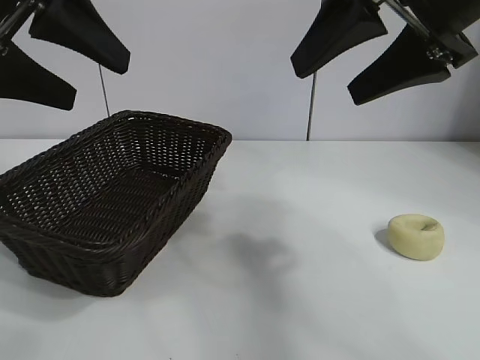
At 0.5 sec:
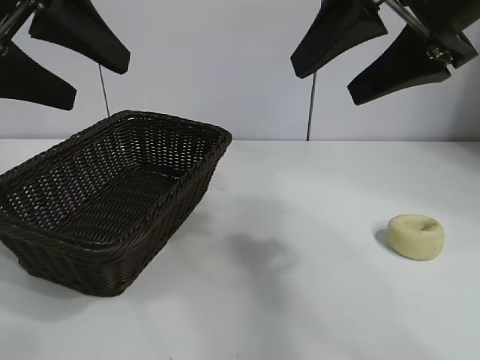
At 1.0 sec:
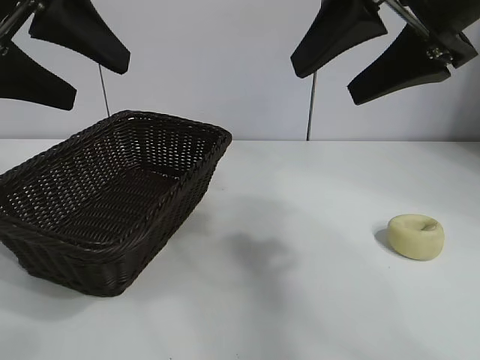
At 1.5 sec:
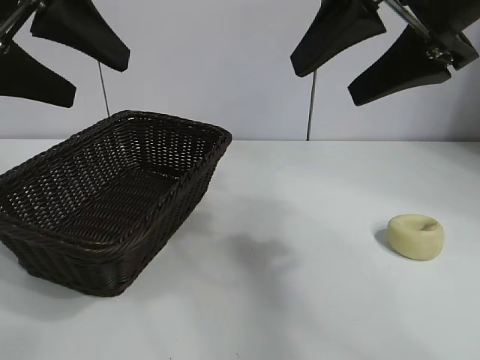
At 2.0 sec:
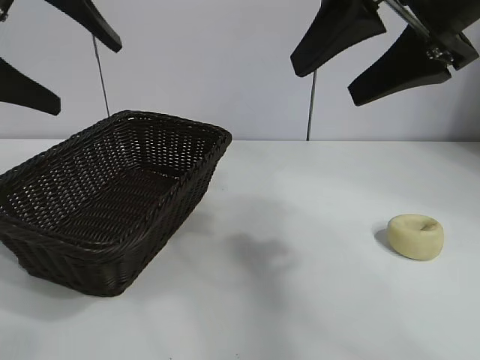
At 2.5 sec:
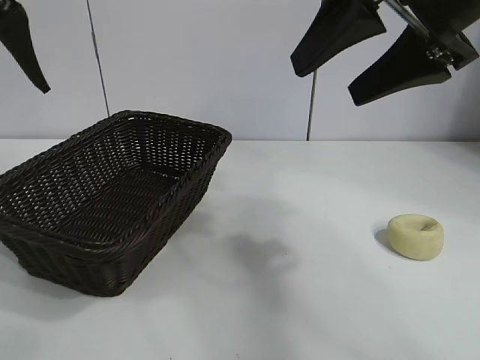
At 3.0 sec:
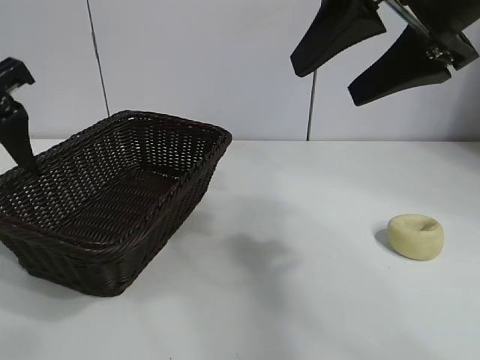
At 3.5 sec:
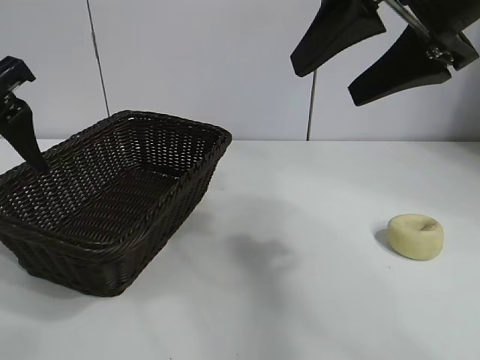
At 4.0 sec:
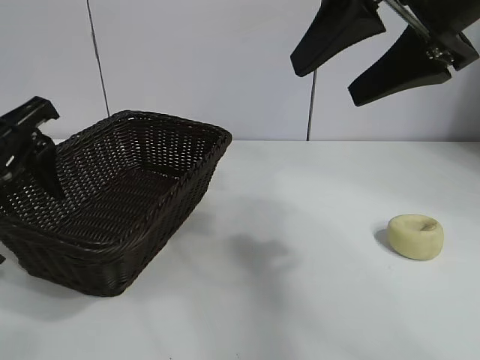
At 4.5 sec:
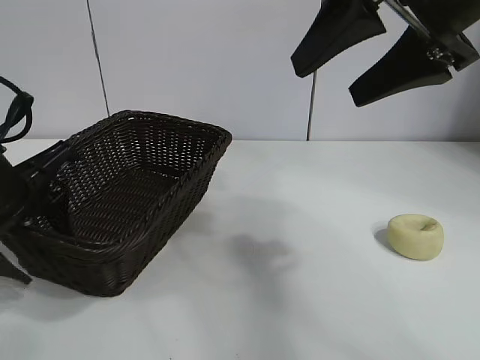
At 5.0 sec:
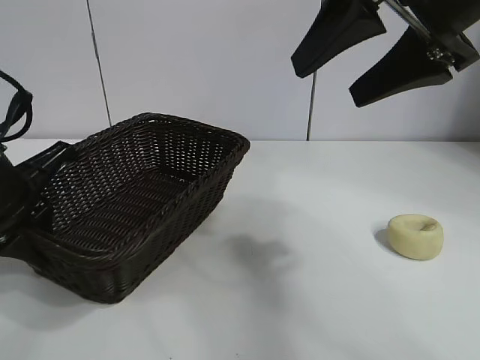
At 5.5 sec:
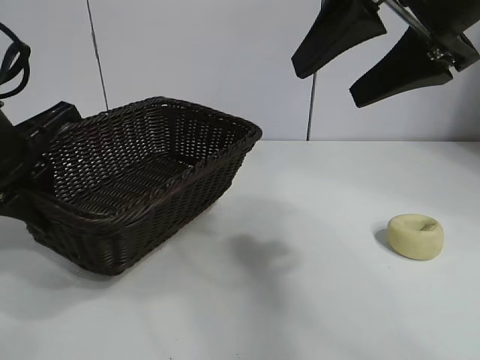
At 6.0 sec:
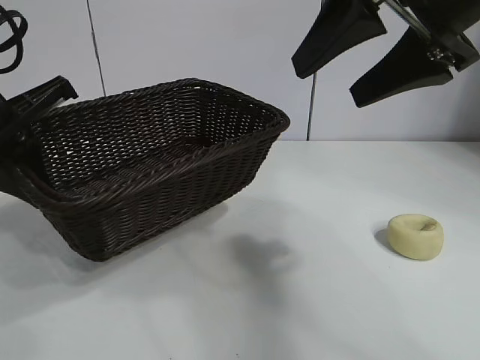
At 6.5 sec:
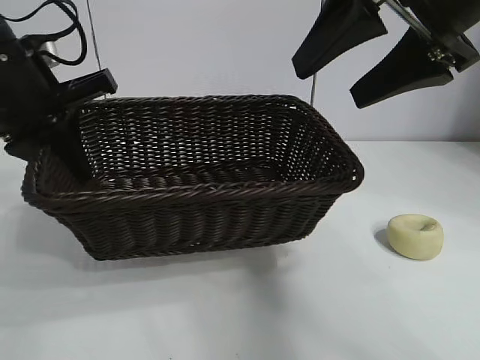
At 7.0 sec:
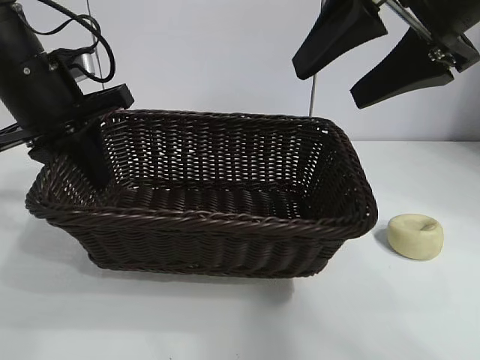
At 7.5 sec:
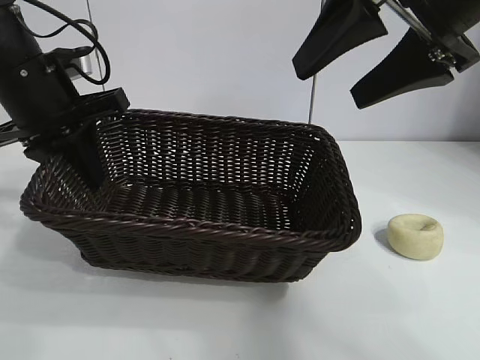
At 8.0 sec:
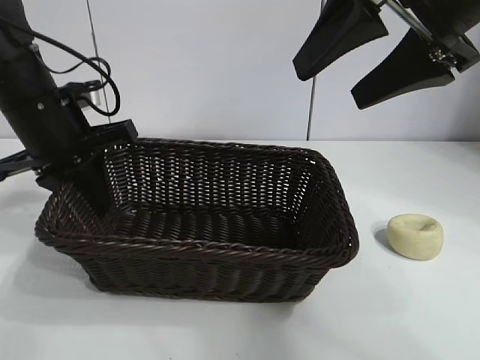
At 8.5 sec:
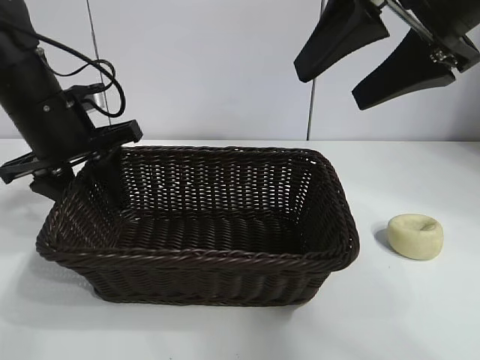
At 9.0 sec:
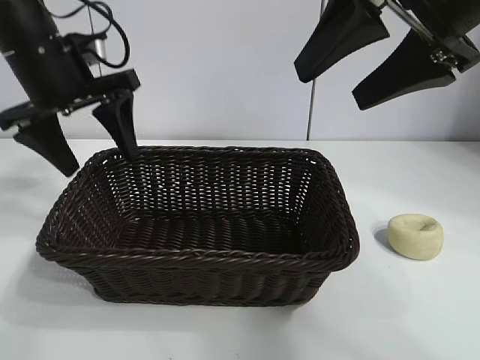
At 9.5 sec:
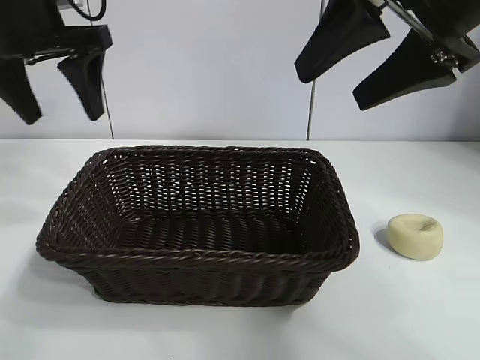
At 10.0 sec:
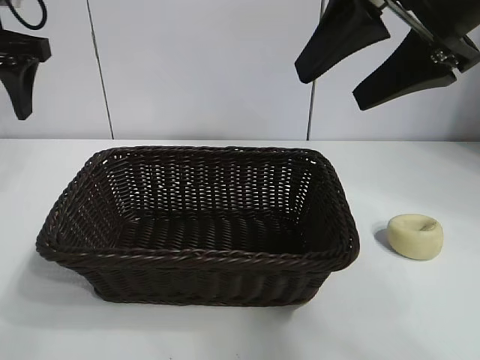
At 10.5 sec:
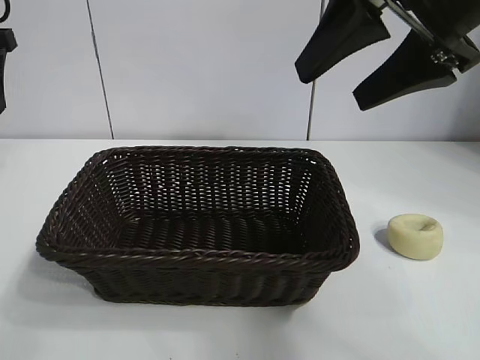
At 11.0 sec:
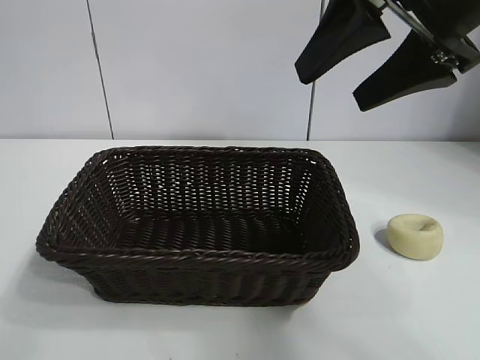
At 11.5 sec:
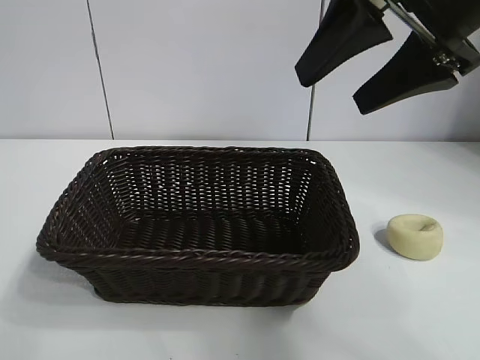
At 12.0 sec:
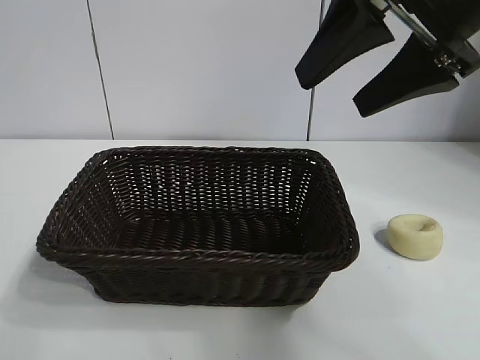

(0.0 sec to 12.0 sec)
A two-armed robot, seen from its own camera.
Task of the whole recording: pick up the egg yolk pastry and put it into the basket.
Step, 2.0 sec - 4.5 sec: Grasp the basket with left gripper.
Step, 5.0 sec - 8.5 sec: Place the basket in the center of view with left gripper.

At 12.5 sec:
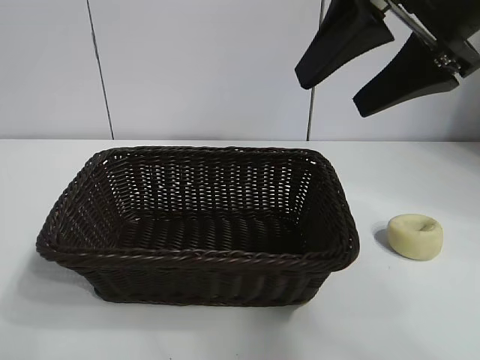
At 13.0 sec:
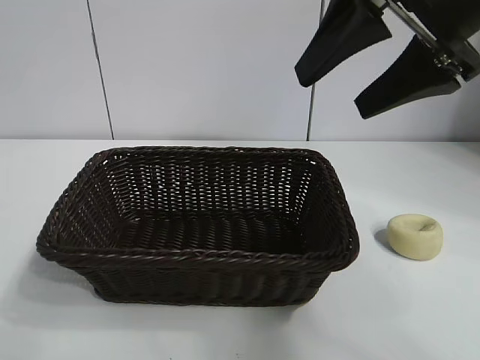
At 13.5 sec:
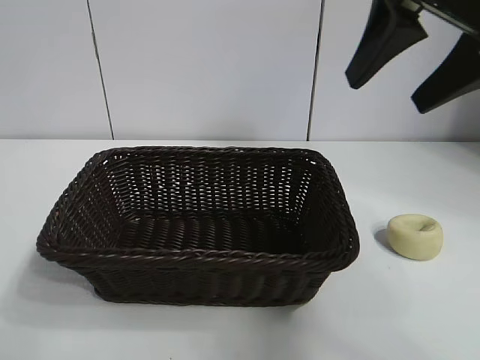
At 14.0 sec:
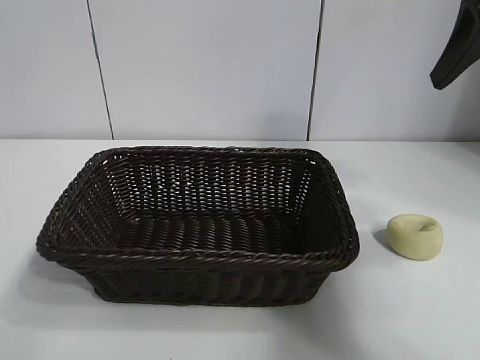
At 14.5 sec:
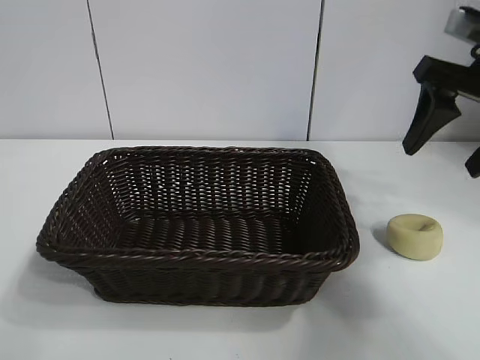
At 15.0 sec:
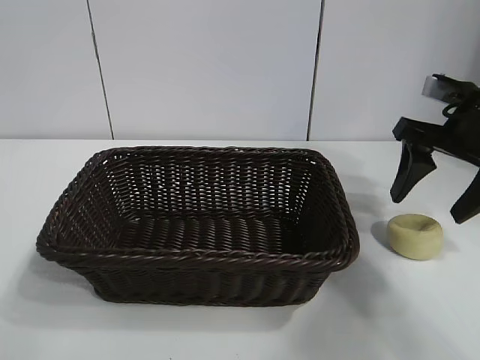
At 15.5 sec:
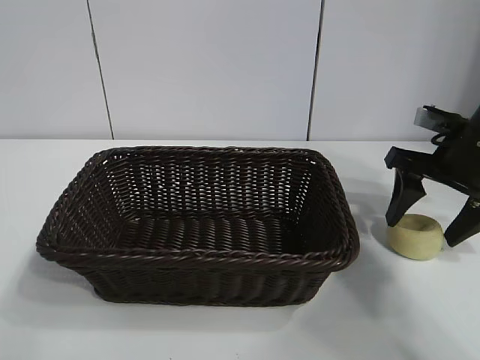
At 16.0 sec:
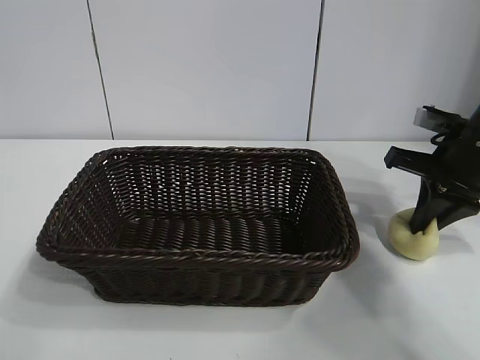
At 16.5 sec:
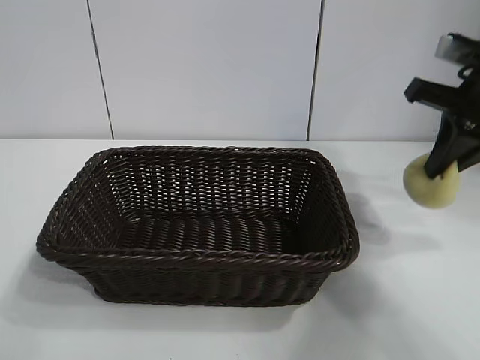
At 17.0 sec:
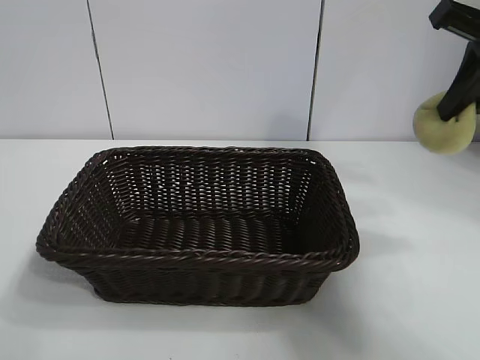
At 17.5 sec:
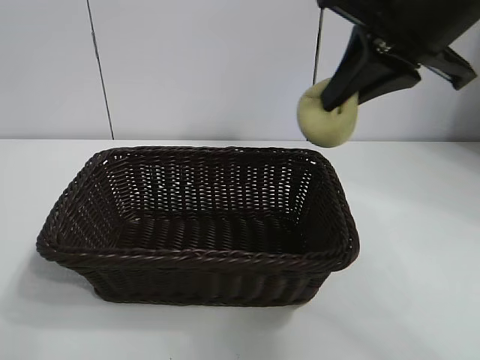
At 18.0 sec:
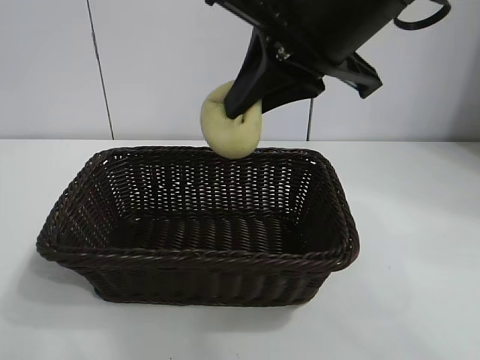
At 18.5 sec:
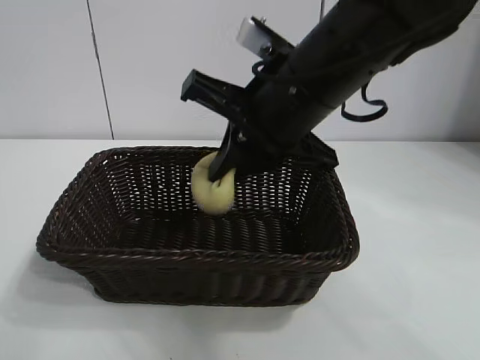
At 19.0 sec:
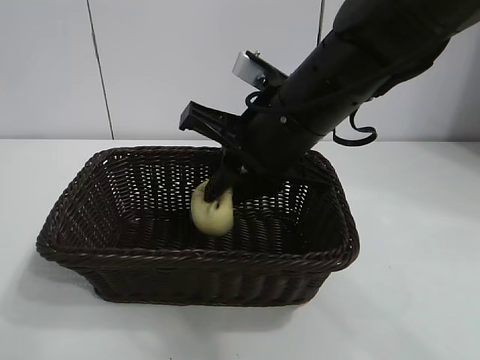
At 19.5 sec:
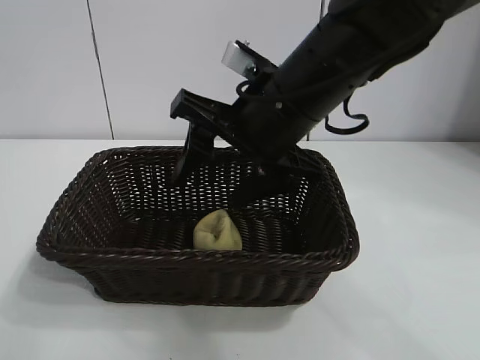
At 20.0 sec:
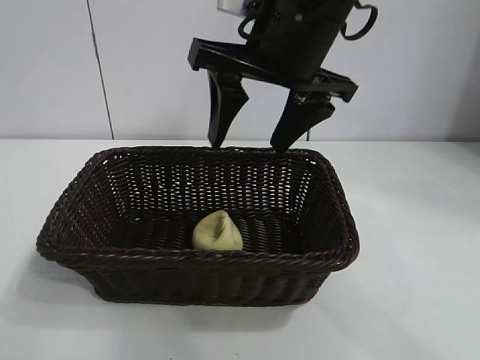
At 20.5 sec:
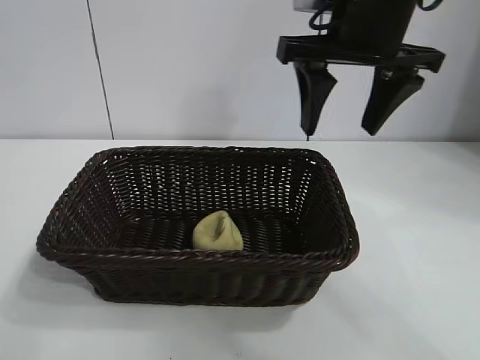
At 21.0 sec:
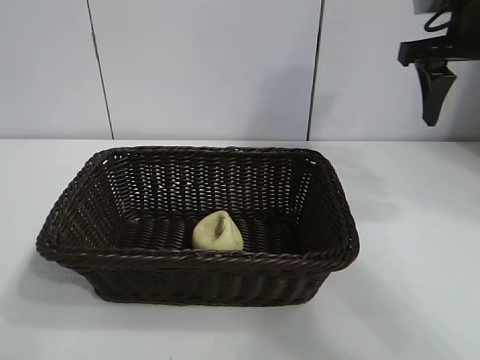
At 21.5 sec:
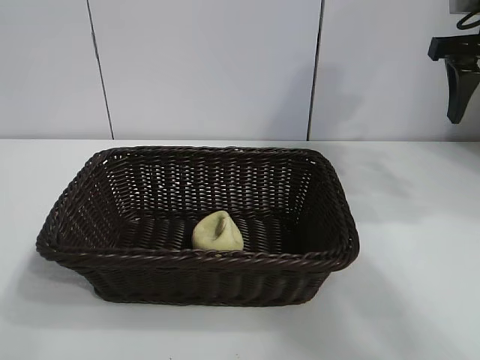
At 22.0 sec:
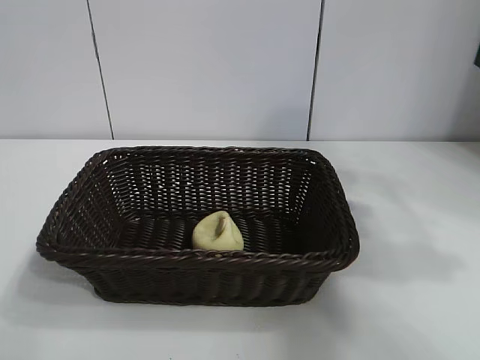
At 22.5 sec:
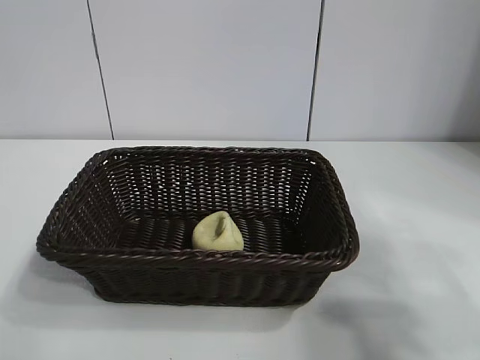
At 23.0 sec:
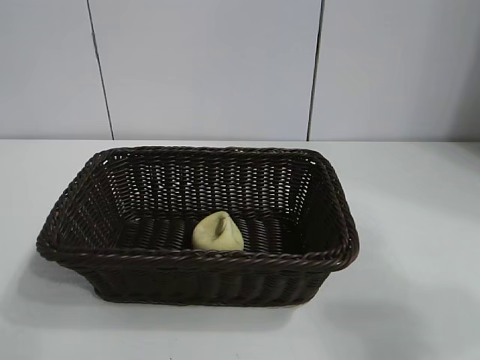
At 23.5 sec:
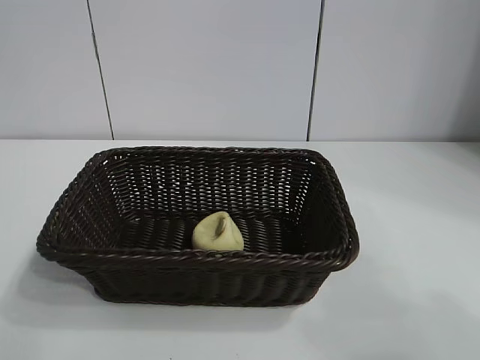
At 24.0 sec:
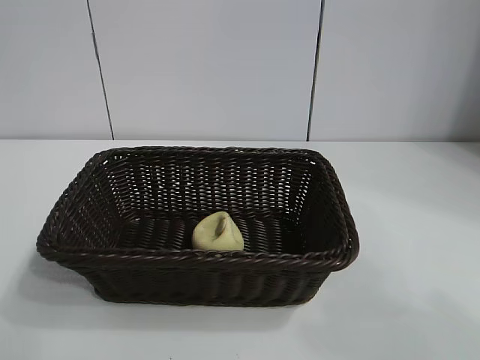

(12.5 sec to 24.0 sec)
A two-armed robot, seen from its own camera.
Task of the whole recording: pick up the egg yolk pastry and put it into the basket.
Step, 12.5 sec - 16.0 sec: Grasp egg yolk pastry with right gripper.
Step, 16.5 sec - 19.0 sec: Place the egg yolk pastry in the basket with right gripper.
